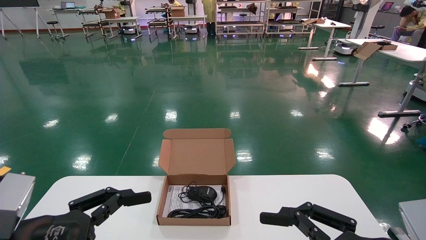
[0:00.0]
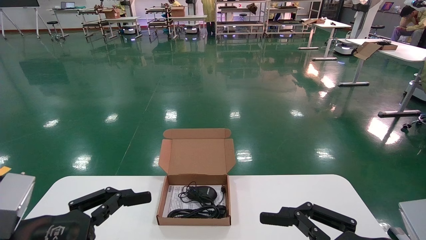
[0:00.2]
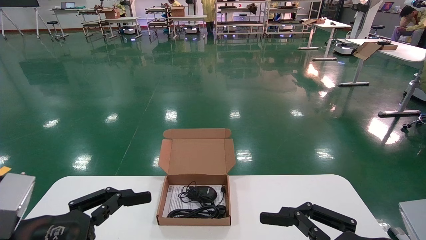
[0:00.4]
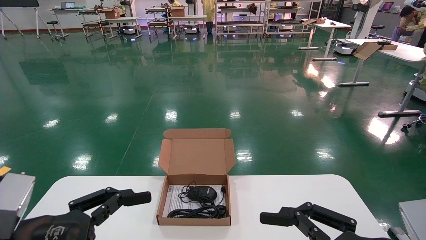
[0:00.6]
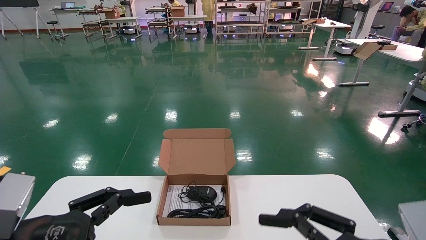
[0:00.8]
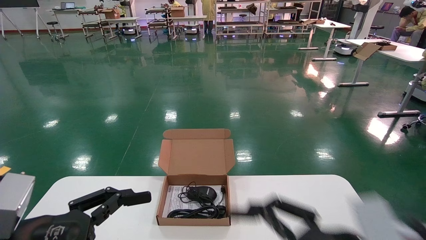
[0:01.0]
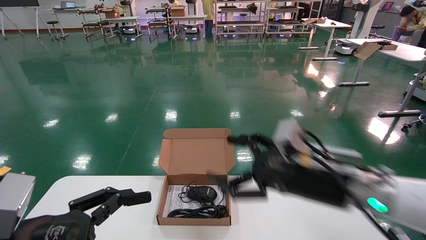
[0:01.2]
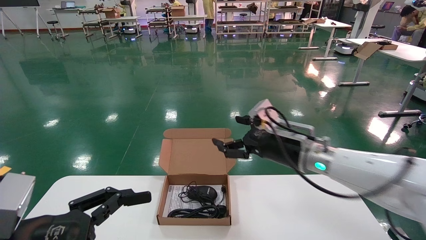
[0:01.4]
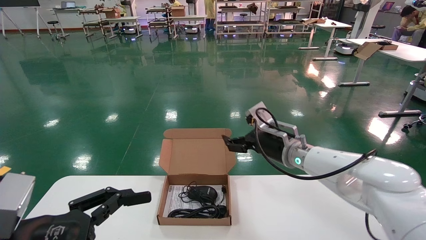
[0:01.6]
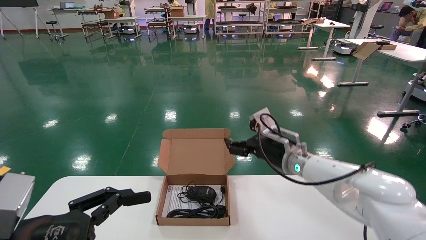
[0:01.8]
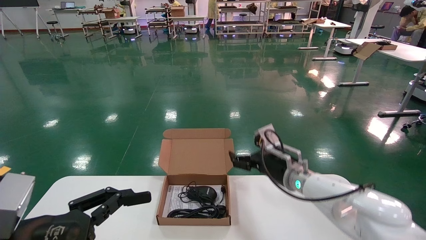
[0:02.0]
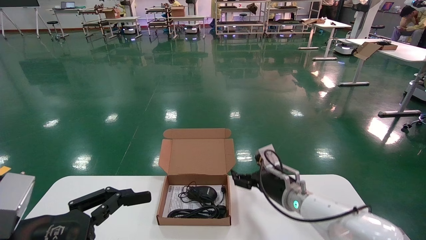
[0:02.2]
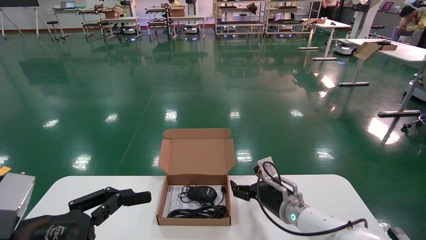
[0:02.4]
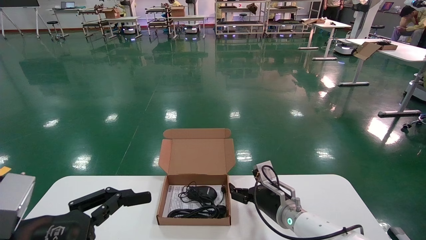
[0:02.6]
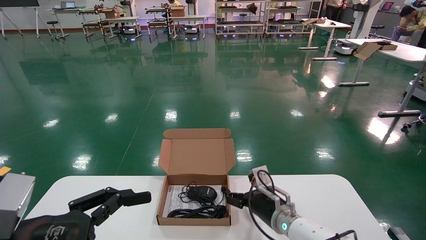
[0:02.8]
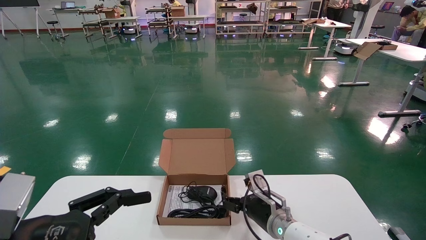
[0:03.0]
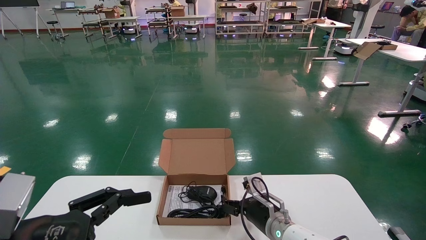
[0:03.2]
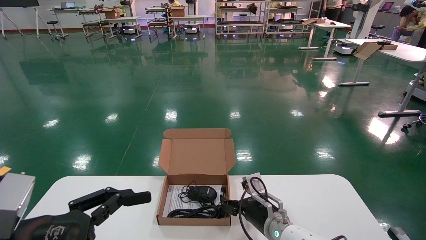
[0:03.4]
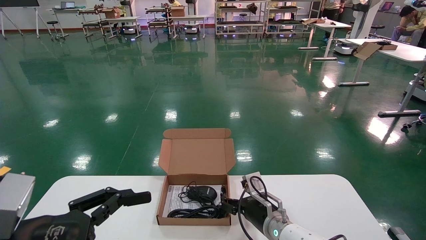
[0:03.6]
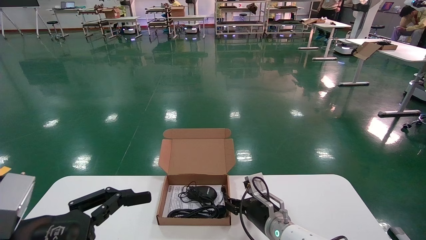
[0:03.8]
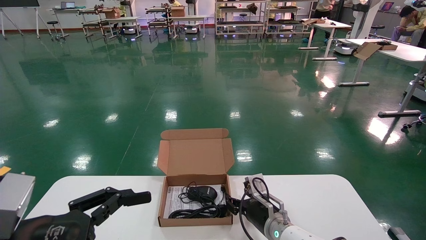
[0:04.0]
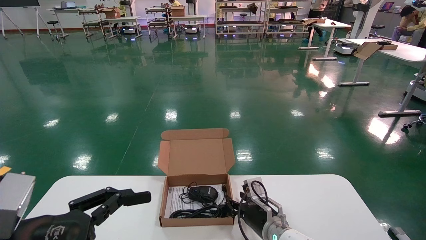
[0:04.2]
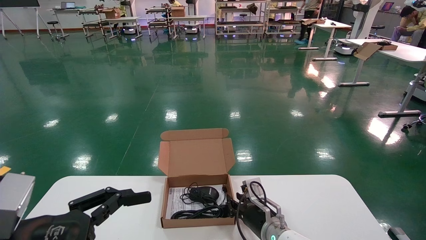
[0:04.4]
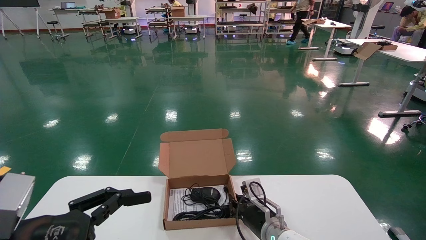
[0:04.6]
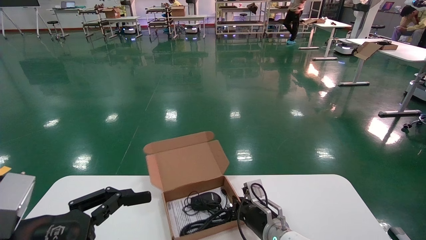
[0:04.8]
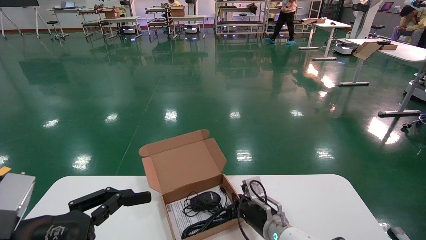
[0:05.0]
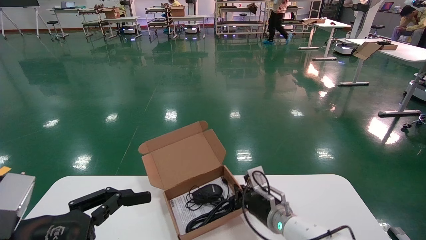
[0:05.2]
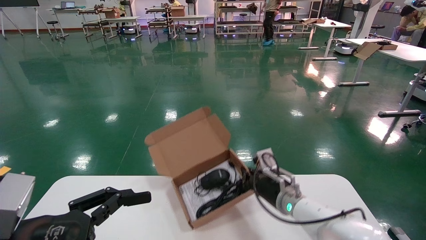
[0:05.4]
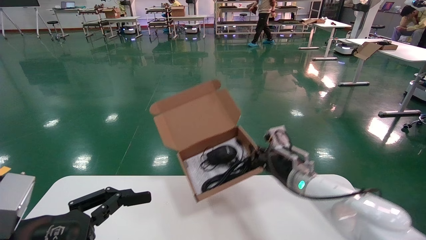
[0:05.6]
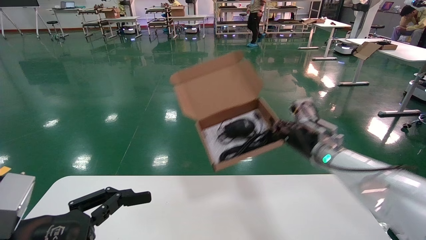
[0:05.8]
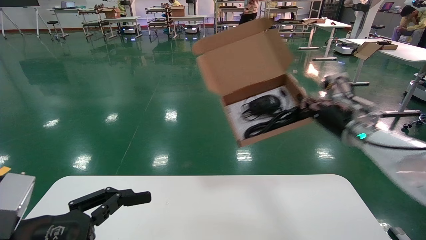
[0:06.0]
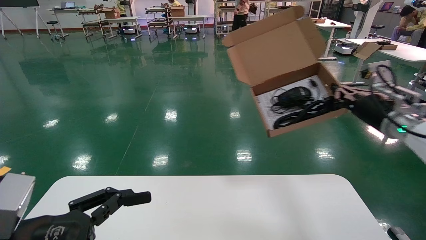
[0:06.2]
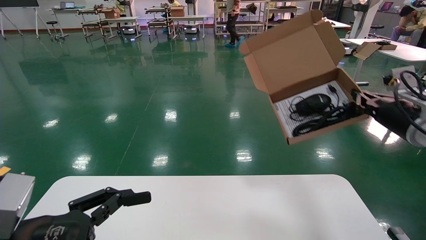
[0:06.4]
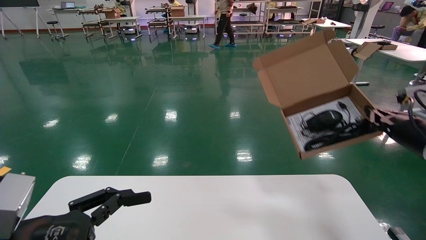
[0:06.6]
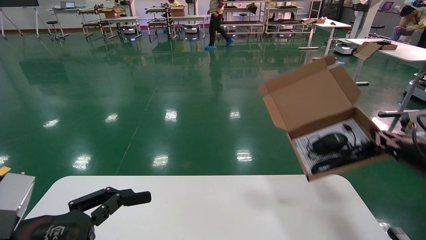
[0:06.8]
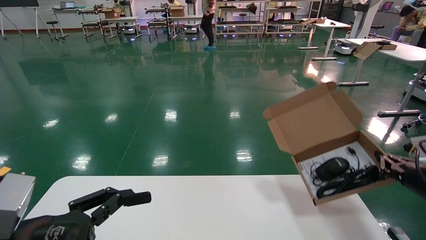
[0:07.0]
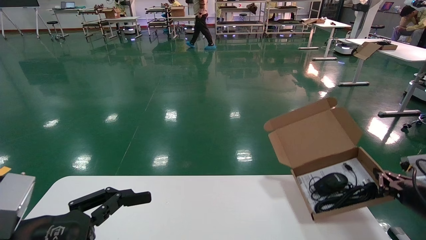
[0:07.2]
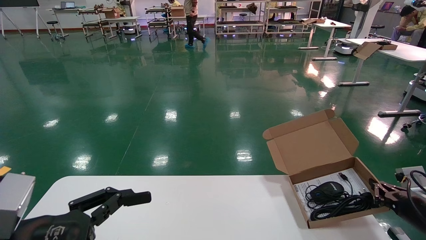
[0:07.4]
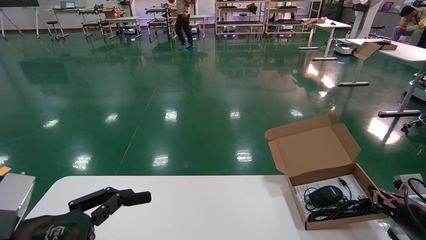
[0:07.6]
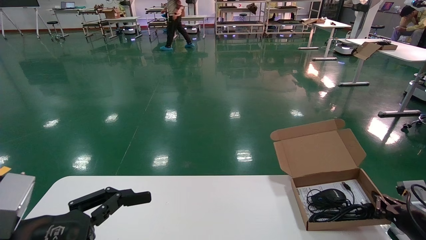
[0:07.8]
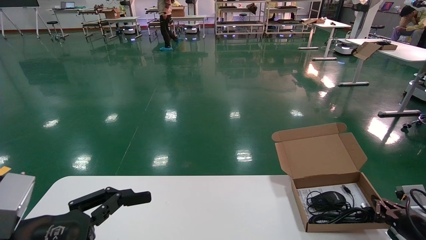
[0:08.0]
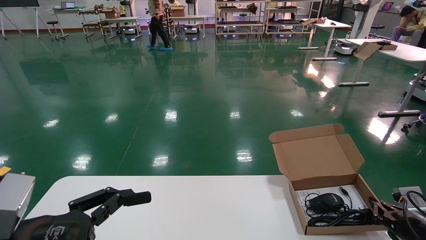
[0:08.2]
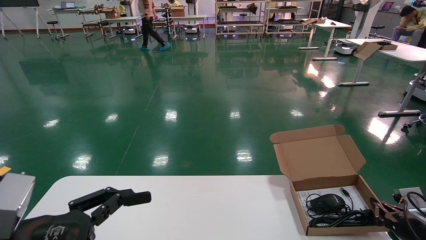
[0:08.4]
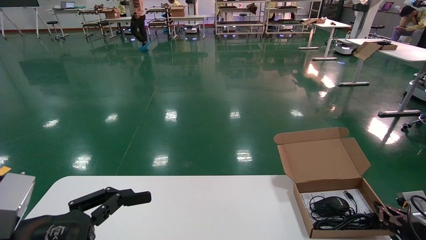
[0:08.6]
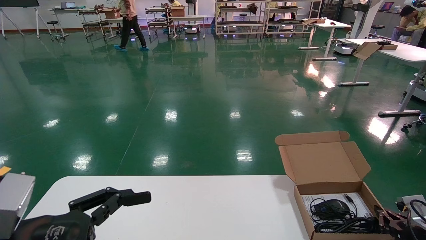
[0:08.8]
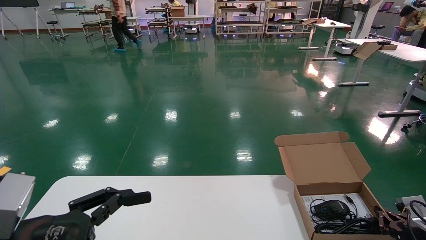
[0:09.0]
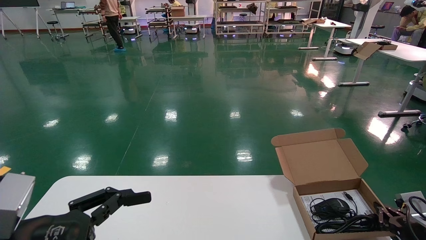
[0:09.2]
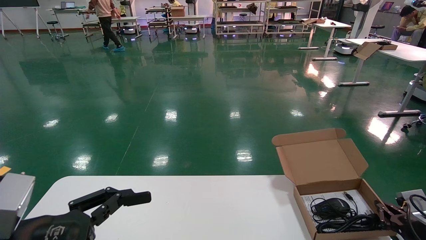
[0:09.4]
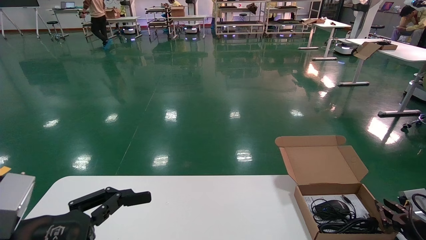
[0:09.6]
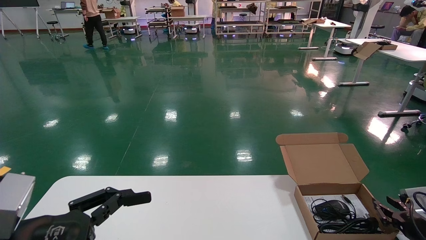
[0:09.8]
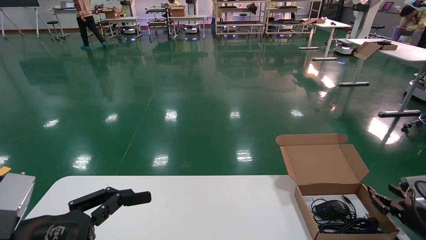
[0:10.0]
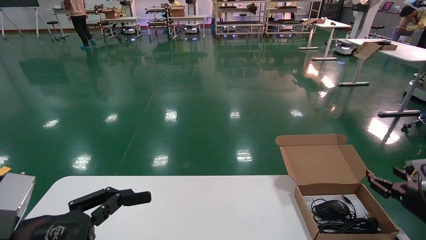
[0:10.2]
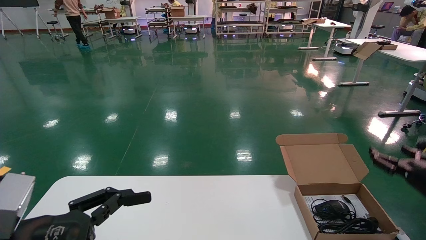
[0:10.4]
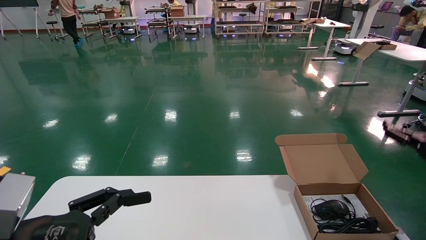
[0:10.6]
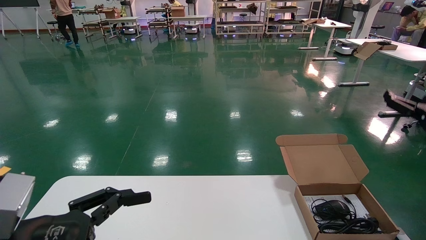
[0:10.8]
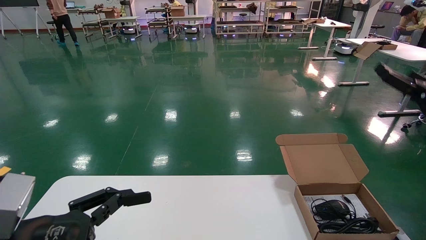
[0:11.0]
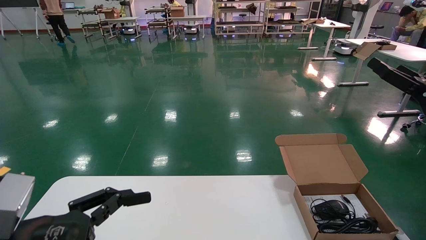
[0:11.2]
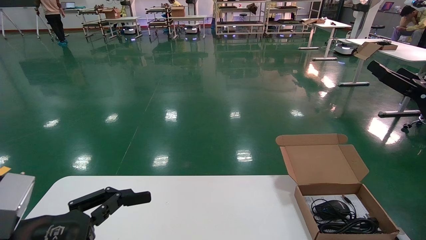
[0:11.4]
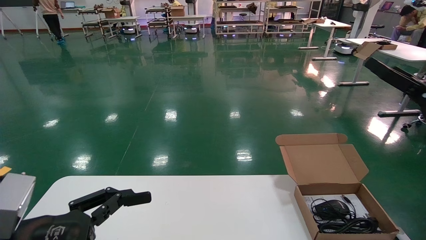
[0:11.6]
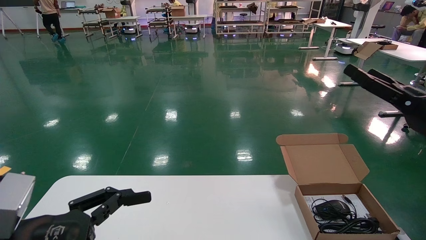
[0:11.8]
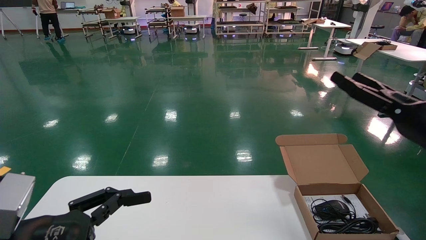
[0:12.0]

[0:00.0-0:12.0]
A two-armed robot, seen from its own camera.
Task of the whole recording: move the position of the storage box with accessories on the table.
Step, 0:01.2 to 0:04.8: Grab and pick up the open mouse box from the accessory packaging area.
Step, 0:05.0 to 0:09.6: Place the open mouse box onto the operation table.
0:00.0 to 0:01.6: The right gripper goes roughly 30 cm forward.
0:01.6 to 0:03.0: The right gripper is displaced downward by about 15 cm.
0:03.0 to 0:04.4: The right gripper closes.
0:04.4 to 0:06.0: The right gripper travels upward and to the right by about 30 cm, and closes.
0:06.0 to 0:07.6: The right gripper goes some 25 cm downward and to the right.
0:07.6 to 0:09.0: There are only small adjustments of the grippers.
0:09.0 to 0:10.4: The right gripper is displaced upward by about 15 cm, and opens its fingers.
0:10.4 to 0:12.0: The right gripper travels upward, to the left and backward by roughly 20 cm.

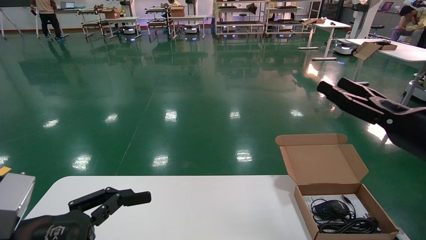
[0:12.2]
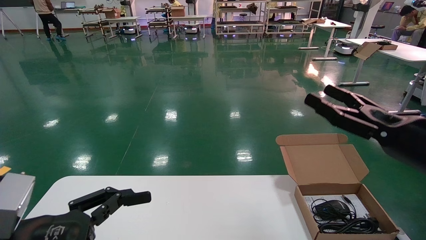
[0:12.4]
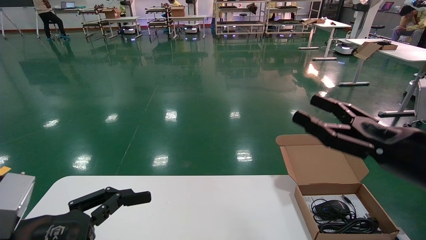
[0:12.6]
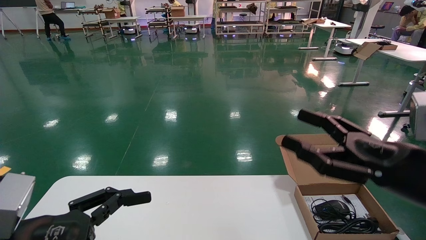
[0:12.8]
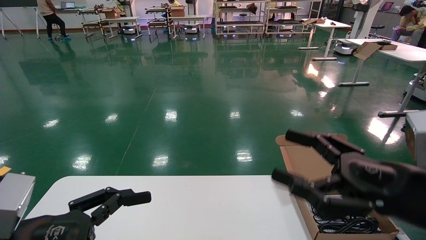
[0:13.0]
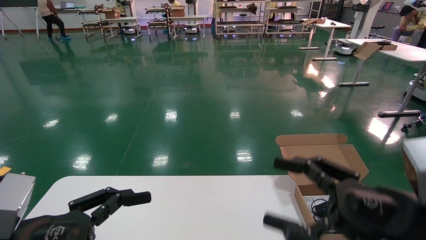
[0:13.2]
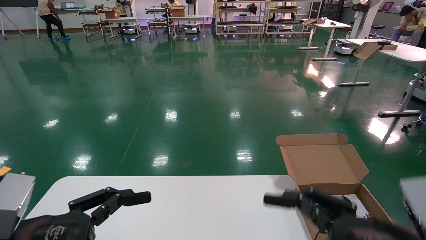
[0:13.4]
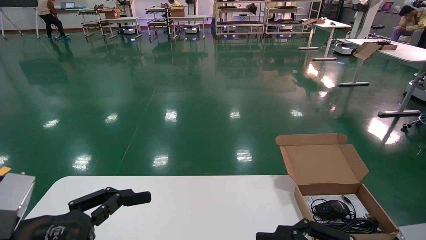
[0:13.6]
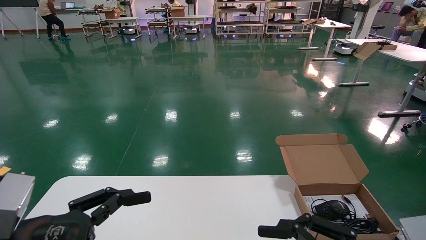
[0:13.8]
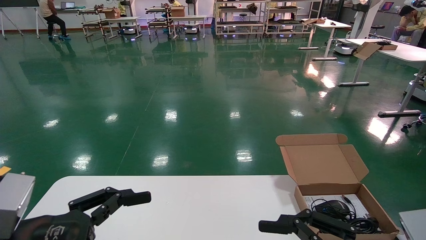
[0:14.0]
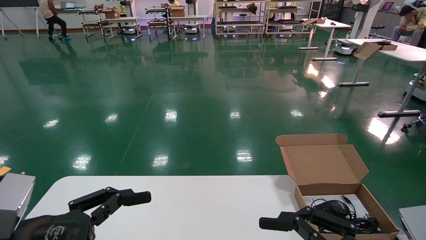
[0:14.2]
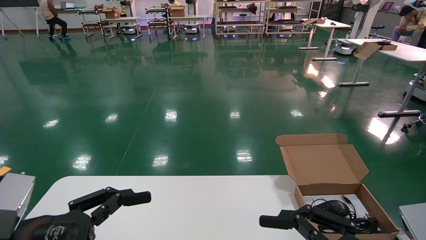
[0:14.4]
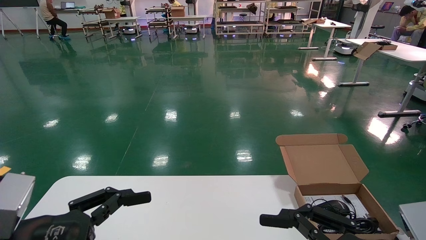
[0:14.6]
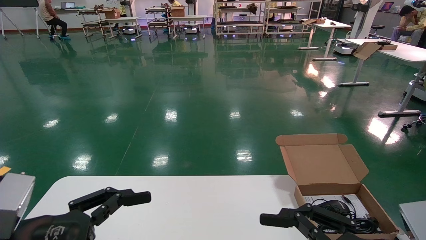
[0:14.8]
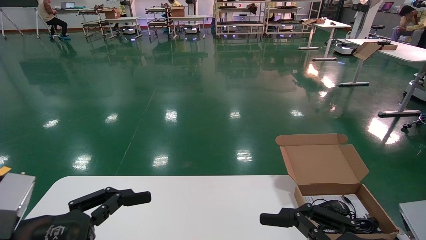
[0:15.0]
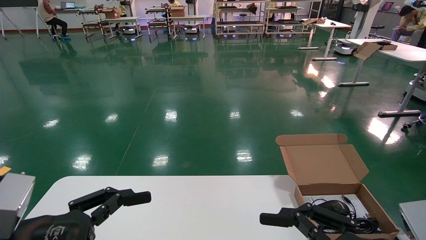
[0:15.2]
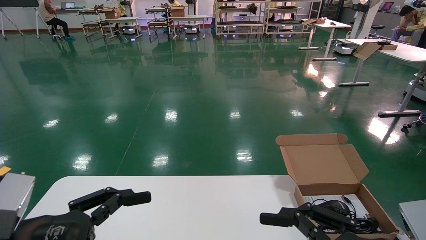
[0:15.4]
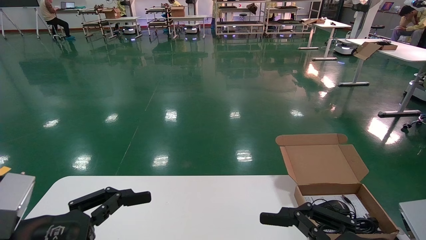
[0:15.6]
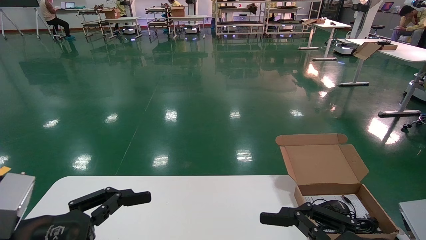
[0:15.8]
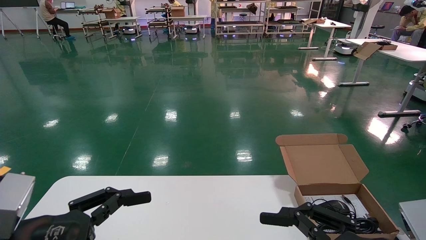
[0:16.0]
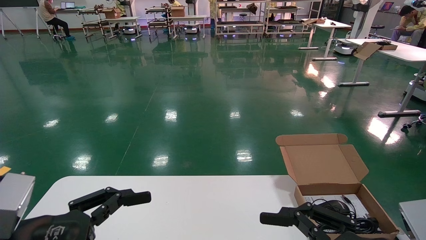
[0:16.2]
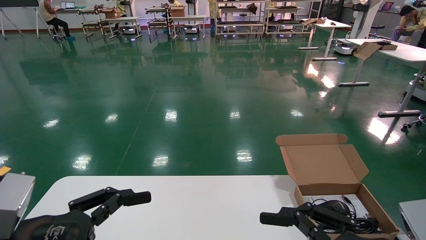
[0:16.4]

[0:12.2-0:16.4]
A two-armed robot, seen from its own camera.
Task of the whole recording: move the position of the storage box with accessories on the table.
0:12.2 to 0:13.6: The right gripper heads backward, to the left and downward, covering approximately 20 cm.
0:13.6 to 0:16.4: Both grippers stay put.
